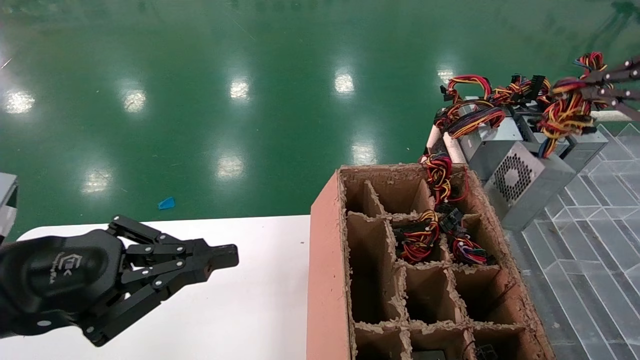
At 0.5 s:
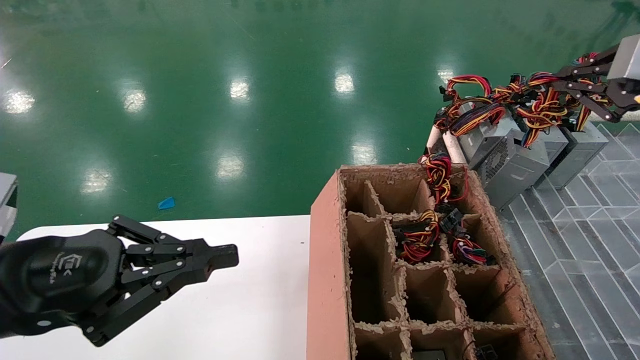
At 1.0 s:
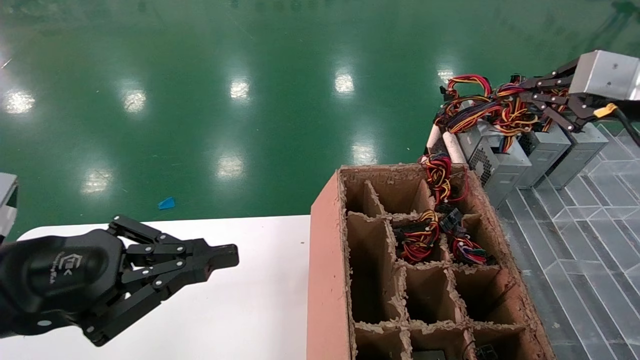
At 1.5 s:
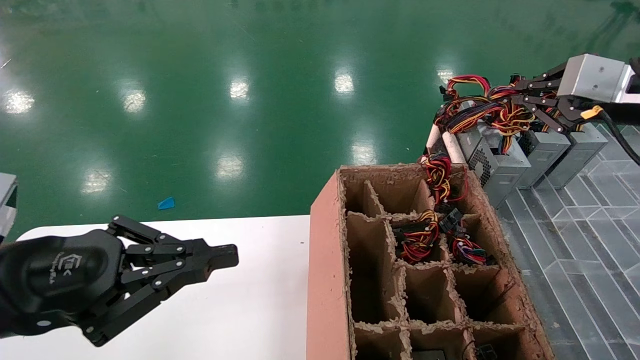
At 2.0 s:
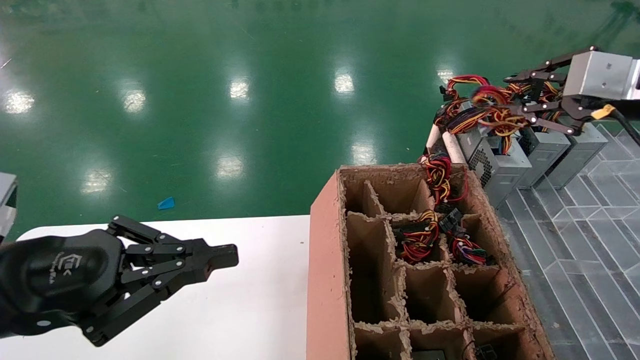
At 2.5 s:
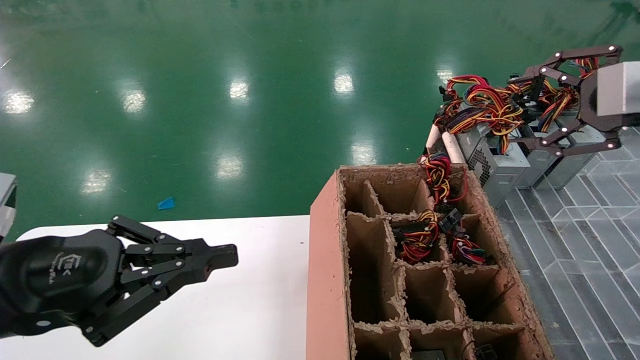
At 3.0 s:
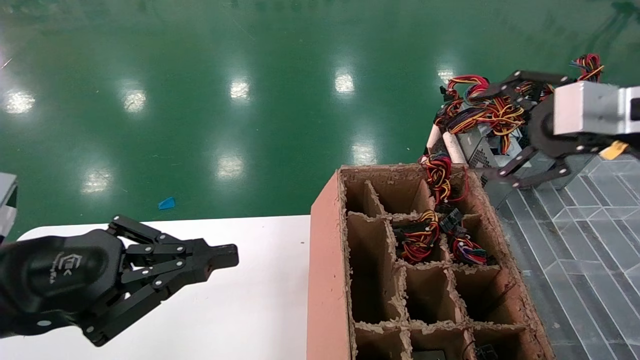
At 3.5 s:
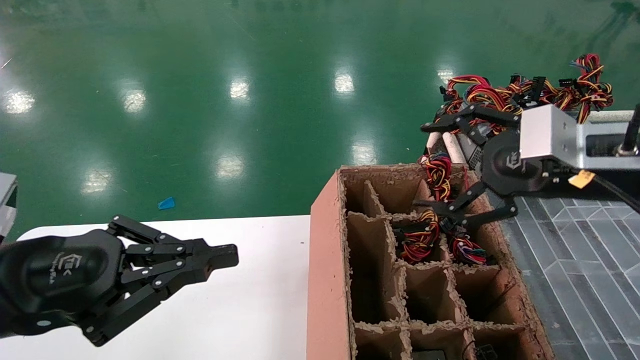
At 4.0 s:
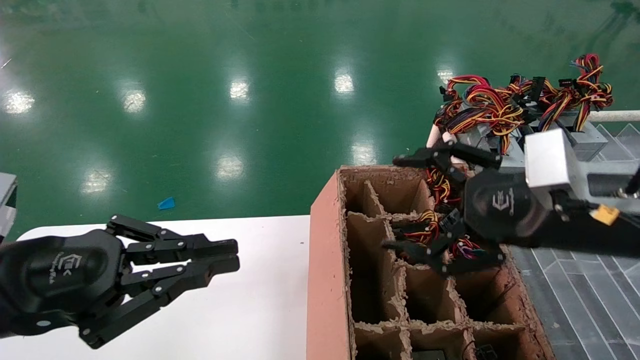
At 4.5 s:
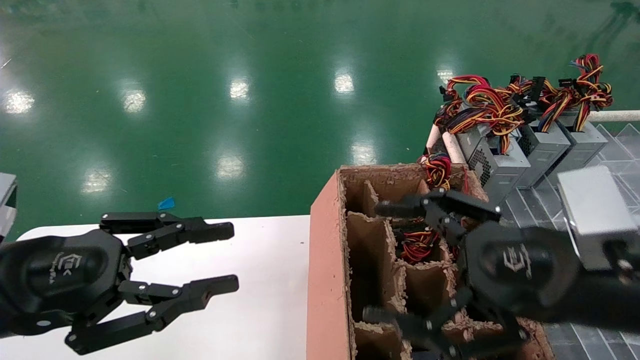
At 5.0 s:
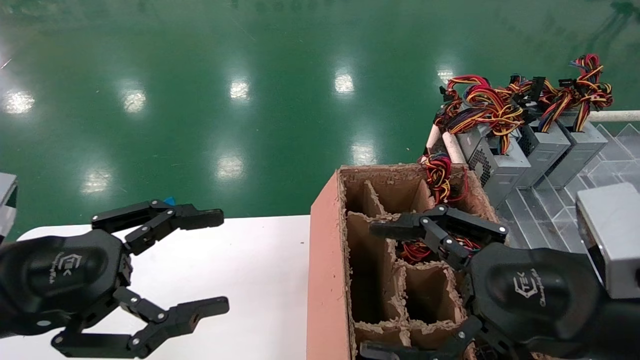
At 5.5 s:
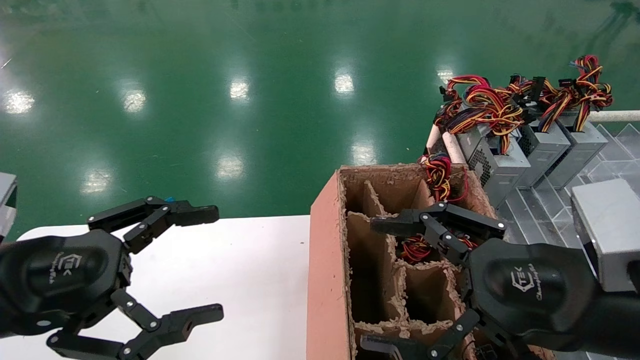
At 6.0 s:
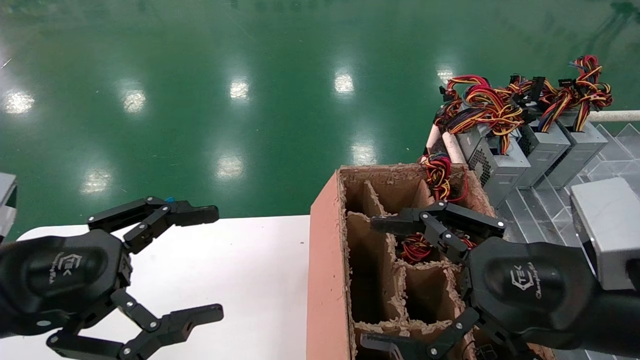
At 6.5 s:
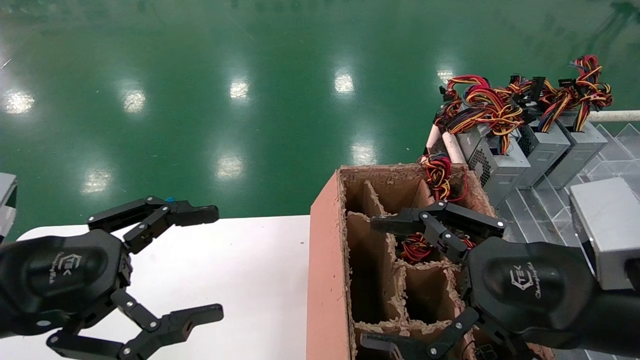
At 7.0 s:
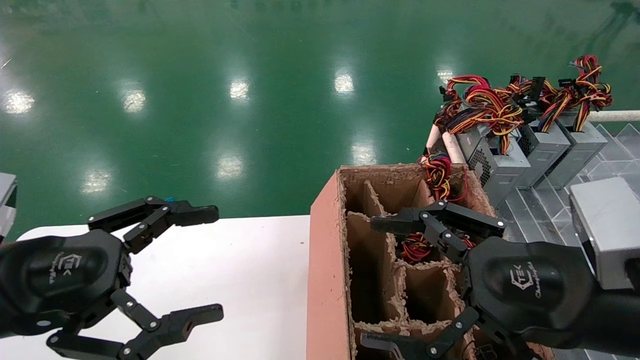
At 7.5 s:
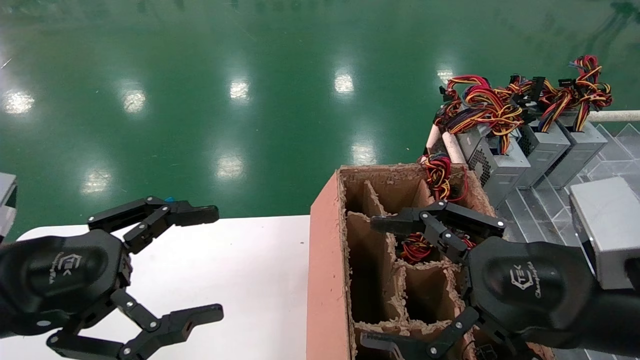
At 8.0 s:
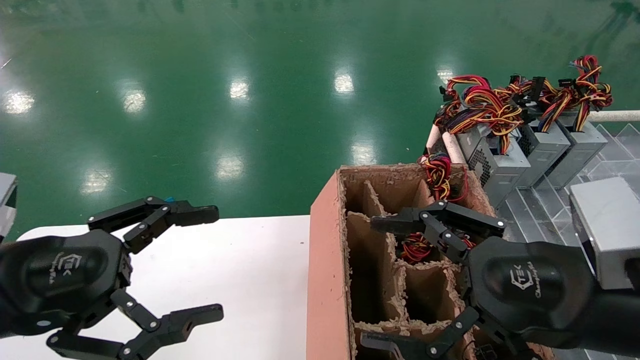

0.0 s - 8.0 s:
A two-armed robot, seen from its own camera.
Step, 0.0 s - 2.0 s: Place the main unit power supply in the designated area.
0.0 s - 2.0 s: The right gripper shifts roughly 10 cm forward and to the left.
2.0 s - 4.0 s: The right gripper heads to the left, downward and backward, covering some 20 cm, and opens up.
4.0 s - 6.0 s: The right gripper is displaced backward by roughly 5 cm. Meanwhile the left gripper opens.
6.0 s - 8.0 s: Neither gripper changes place.
